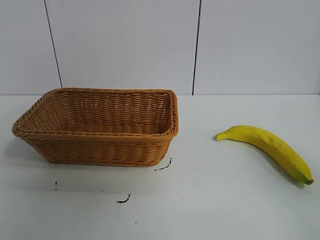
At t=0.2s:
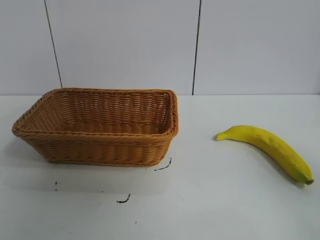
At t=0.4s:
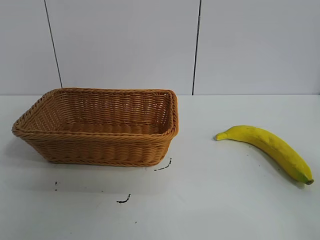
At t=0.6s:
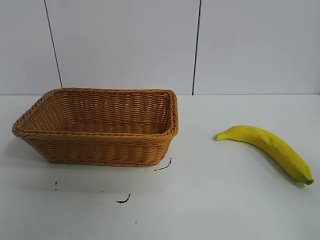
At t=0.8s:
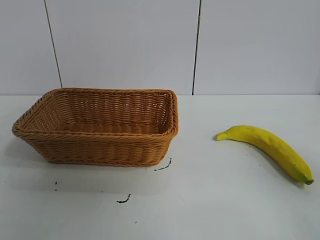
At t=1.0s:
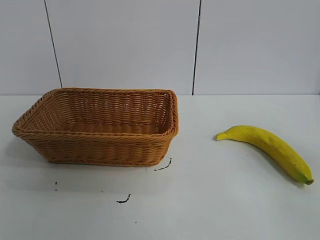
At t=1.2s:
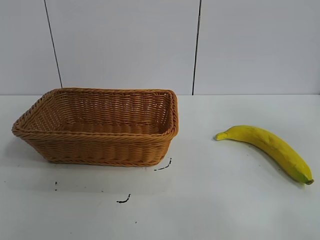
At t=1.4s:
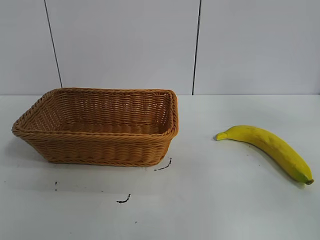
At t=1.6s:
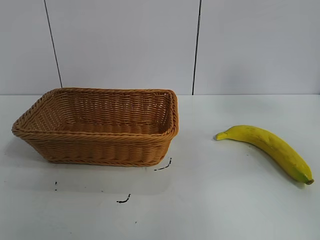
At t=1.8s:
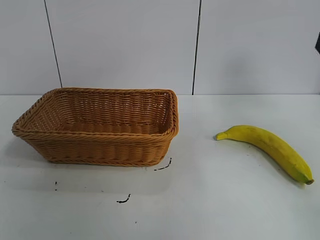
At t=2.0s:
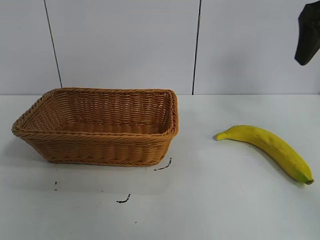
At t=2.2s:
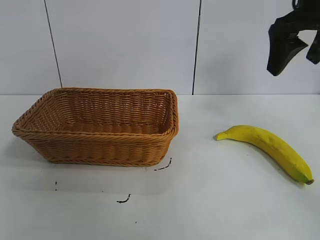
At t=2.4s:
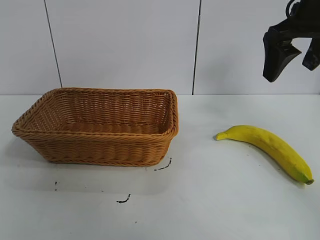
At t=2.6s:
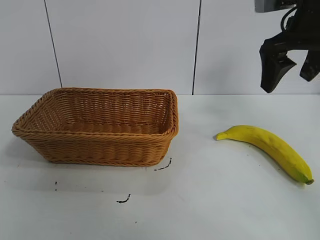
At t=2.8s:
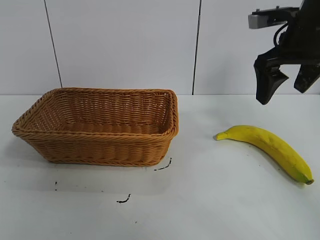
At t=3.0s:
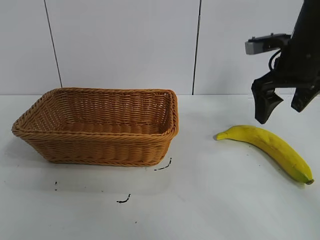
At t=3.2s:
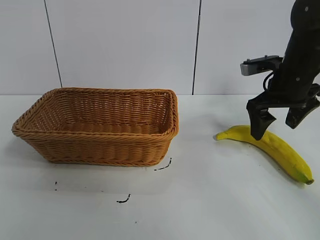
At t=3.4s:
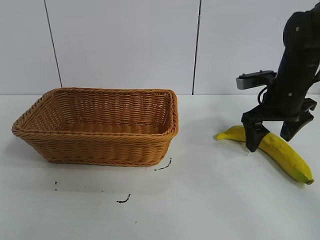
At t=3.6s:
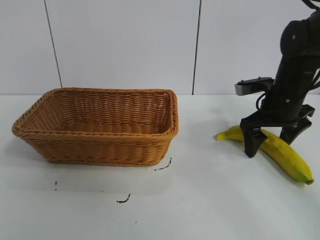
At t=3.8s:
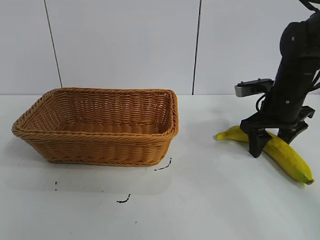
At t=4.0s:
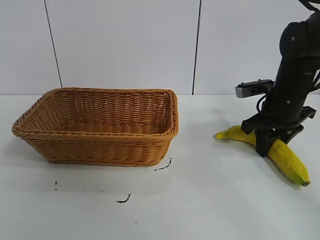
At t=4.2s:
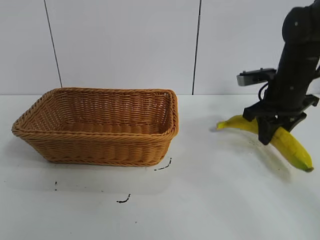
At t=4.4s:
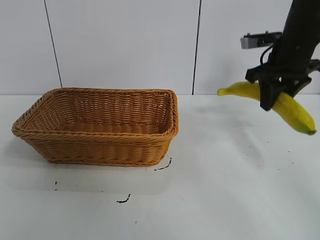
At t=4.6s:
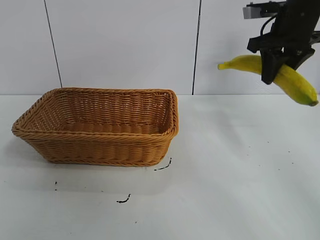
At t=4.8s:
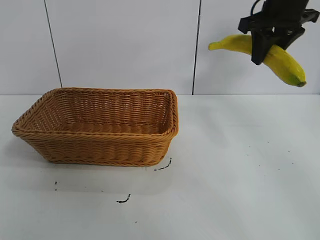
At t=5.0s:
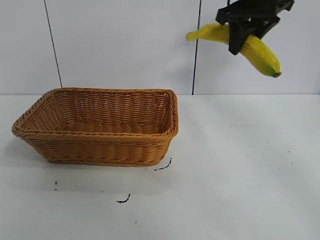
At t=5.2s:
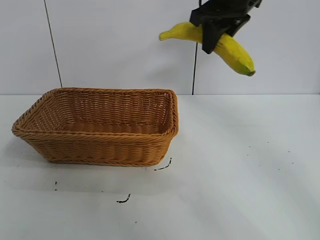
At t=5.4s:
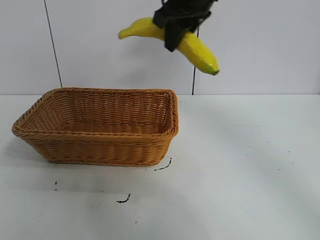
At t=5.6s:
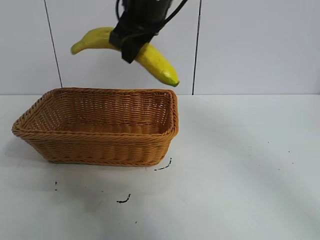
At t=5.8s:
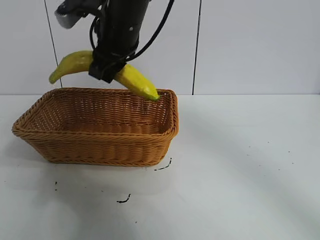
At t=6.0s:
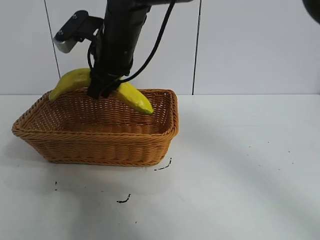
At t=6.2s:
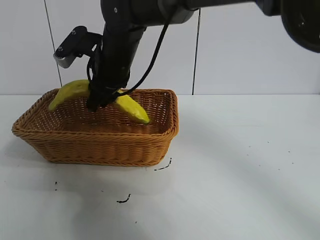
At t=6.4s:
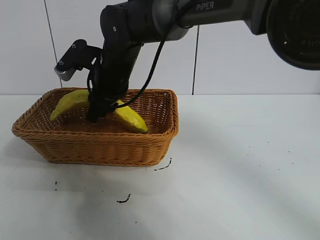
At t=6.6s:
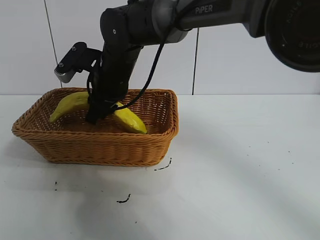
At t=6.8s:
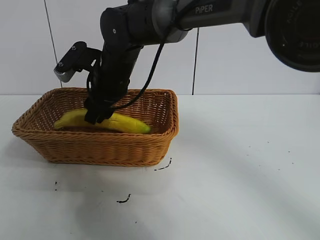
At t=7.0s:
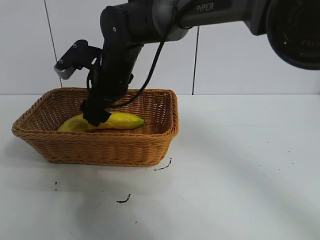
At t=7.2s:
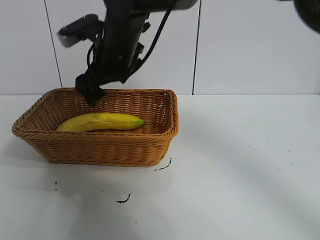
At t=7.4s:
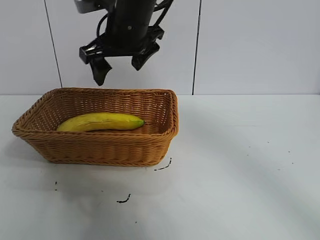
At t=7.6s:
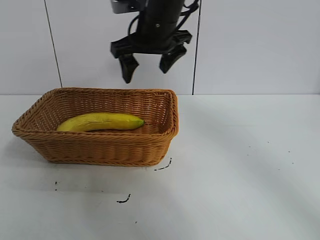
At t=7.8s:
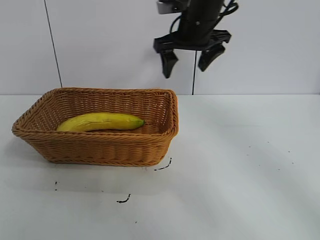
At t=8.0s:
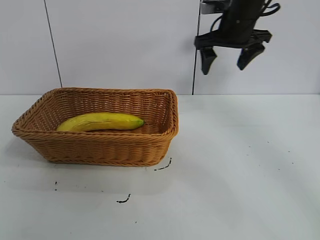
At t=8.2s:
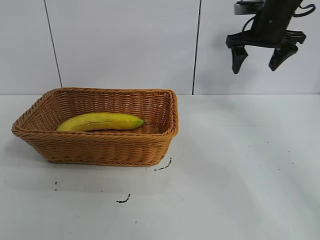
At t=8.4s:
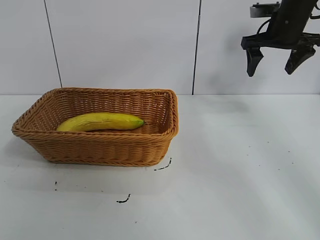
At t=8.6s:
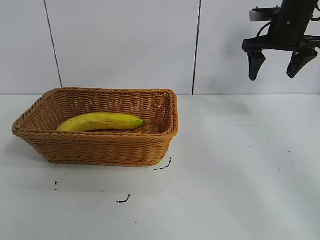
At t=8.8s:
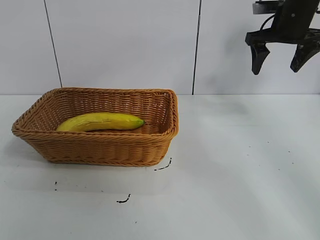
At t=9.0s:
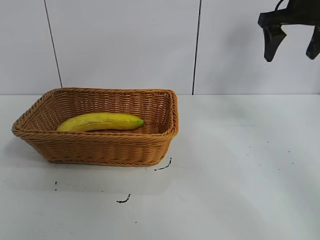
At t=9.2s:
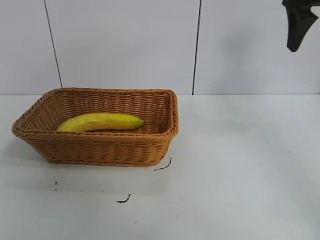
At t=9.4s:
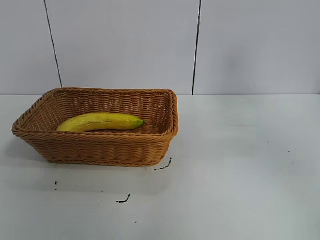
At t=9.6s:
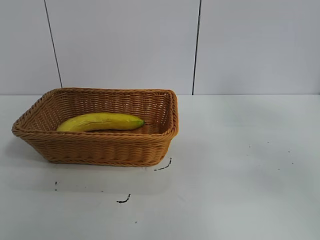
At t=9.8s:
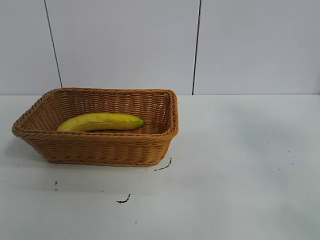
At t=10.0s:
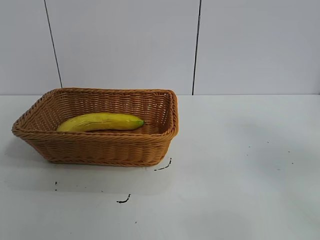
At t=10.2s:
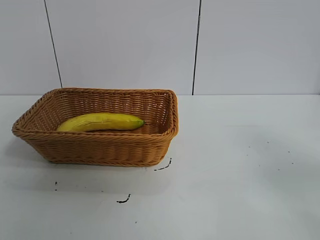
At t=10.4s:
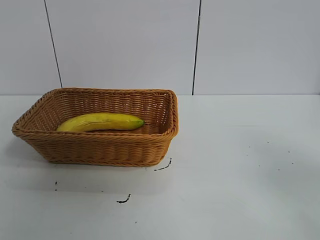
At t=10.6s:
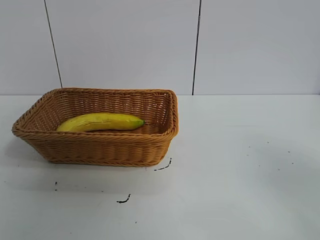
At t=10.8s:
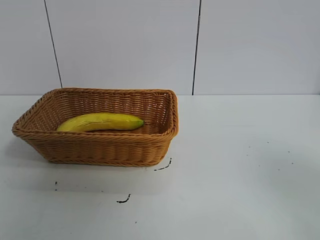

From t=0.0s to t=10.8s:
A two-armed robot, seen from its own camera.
Task of the whole recording: pick up the banana and put it into the basket.
Step, from t=0.8s to t=3.8s: Grasp the banana with right gripper.
Step, from t=4.0s to t=7.0s: Place the banana in the basket with right gripper.
